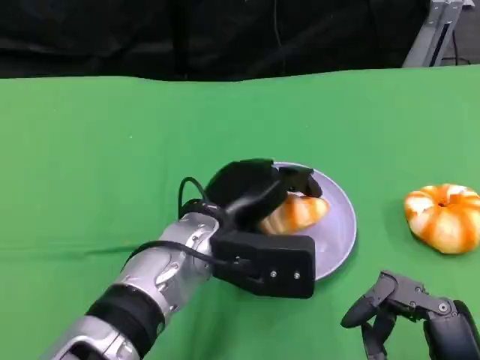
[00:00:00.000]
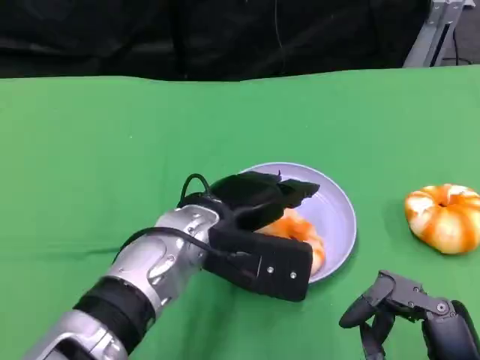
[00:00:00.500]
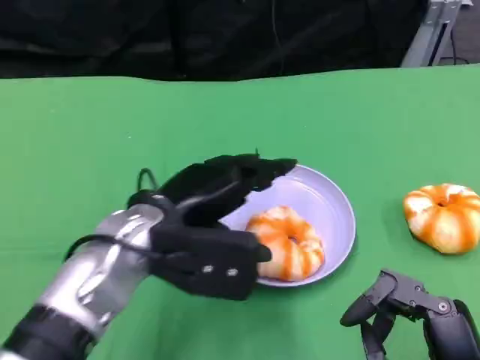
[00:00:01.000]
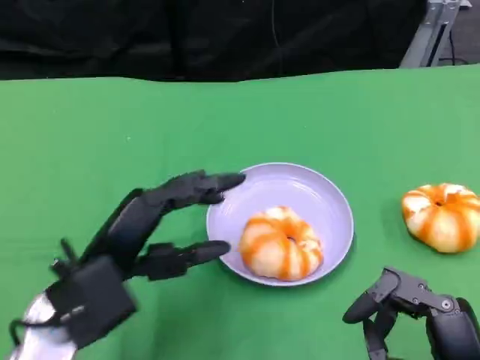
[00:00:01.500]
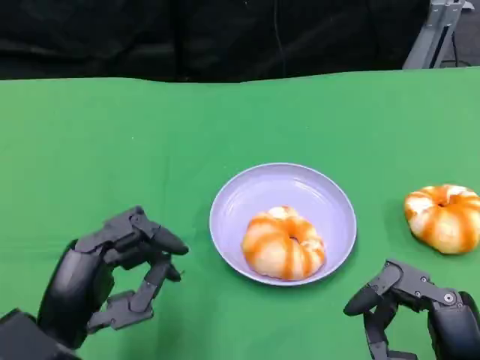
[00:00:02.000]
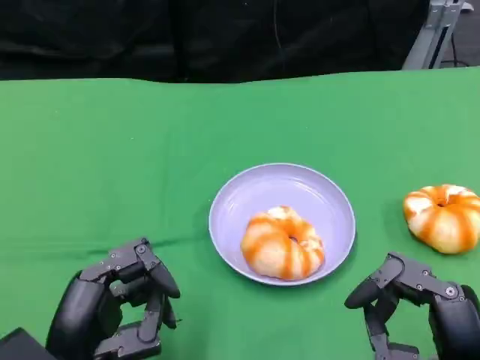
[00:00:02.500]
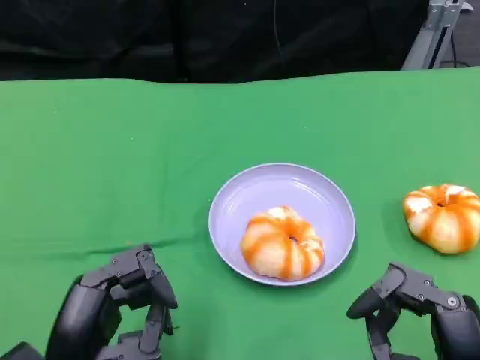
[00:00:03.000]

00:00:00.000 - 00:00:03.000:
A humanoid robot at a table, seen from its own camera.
Task of the whole recording: Grasp the bread from the table and place it into the plate.
00:00:00.000 - 00:00:01.500: The left hand moves to the left and backward, roughly 15 cm.
00:00:01.500 - 00:00:03.000: The left hand shifts some 5 cm backward.
